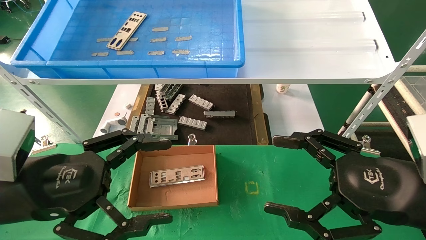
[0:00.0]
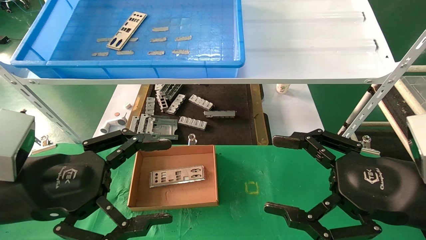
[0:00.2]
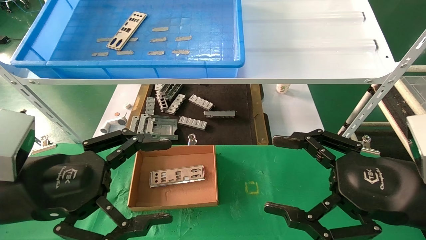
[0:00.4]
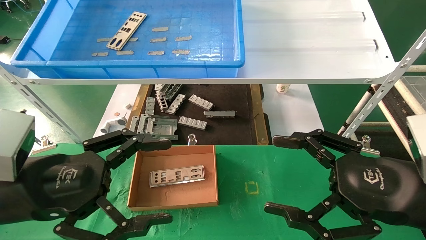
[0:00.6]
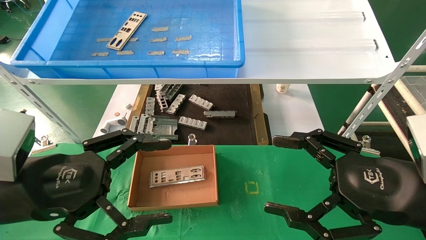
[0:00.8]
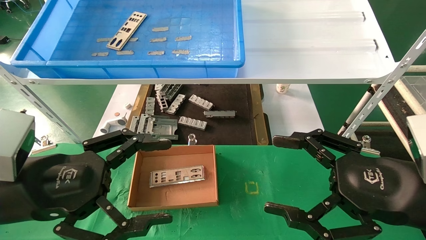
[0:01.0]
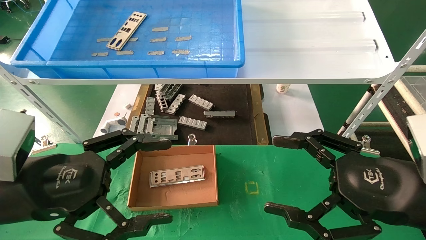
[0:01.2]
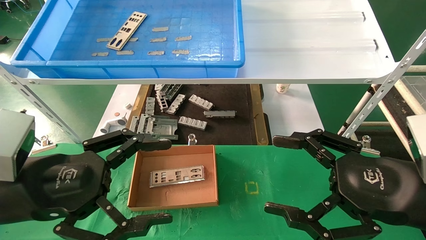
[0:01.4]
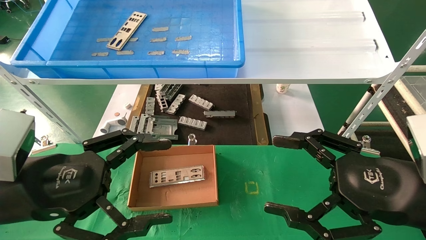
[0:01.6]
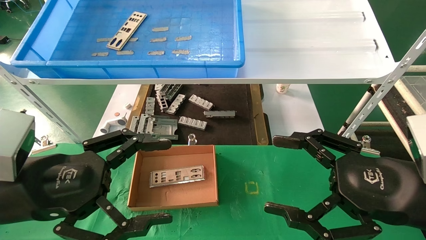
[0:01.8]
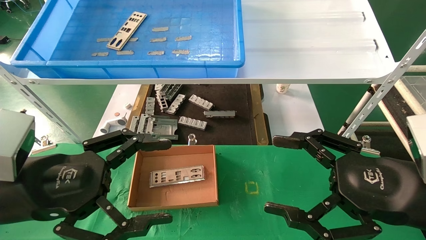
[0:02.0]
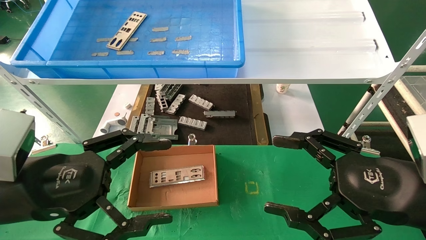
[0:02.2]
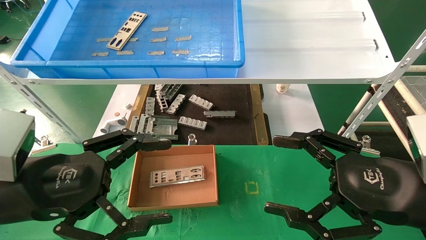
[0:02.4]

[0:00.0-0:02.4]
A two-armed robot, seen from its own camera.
Task of the whole recording: pick up the parts on the tray and put them in the cardboard box.
0:00.0 to 0:02.4: Both grippers stay about where they are.
